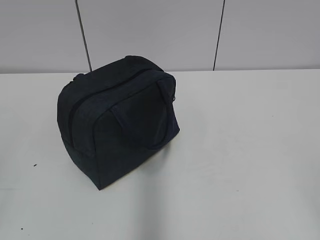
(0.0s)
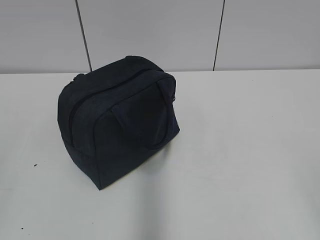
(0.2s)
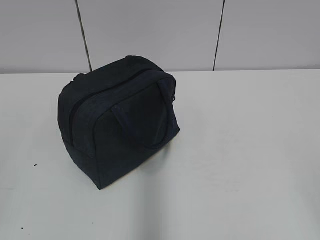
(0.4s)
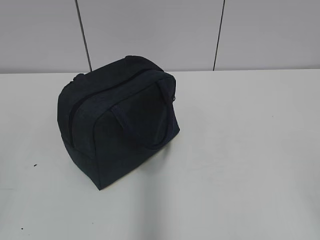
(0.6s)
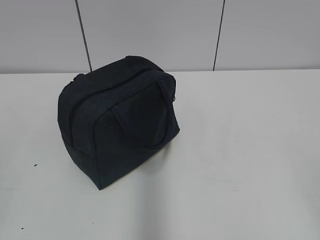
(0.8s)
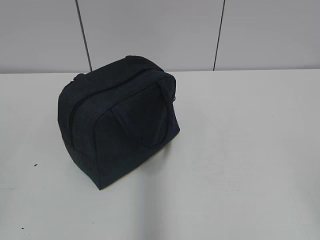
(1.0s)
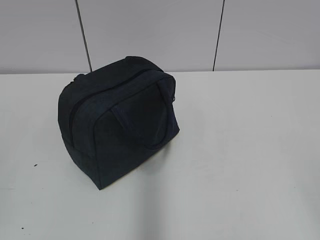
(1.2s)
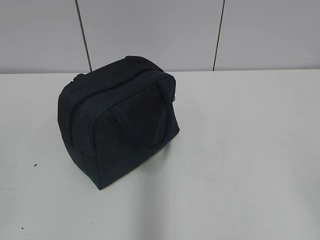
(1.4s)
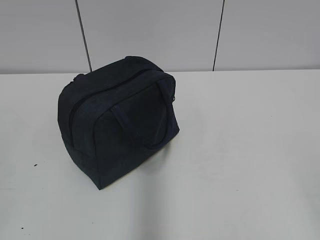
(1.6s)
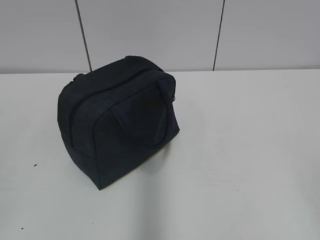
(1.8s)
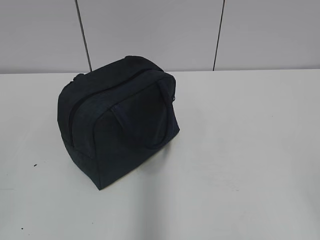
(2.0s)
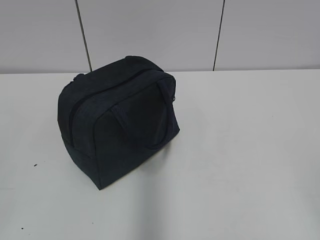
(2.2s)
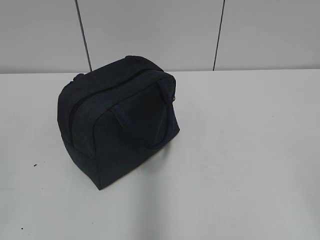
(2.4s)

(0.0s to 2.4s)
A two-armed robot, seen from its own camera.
1.2s - 2.4s: The two grippers keep their place.
